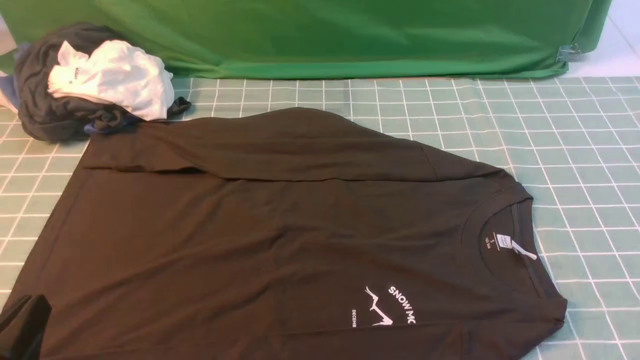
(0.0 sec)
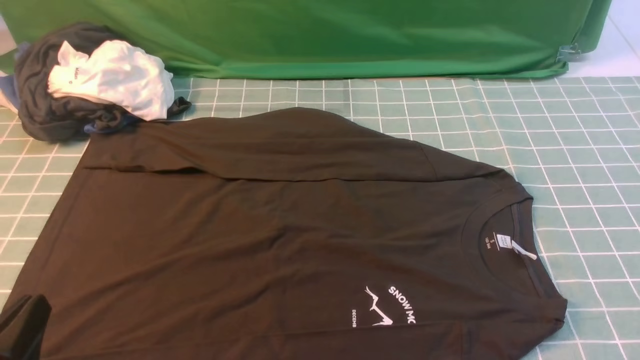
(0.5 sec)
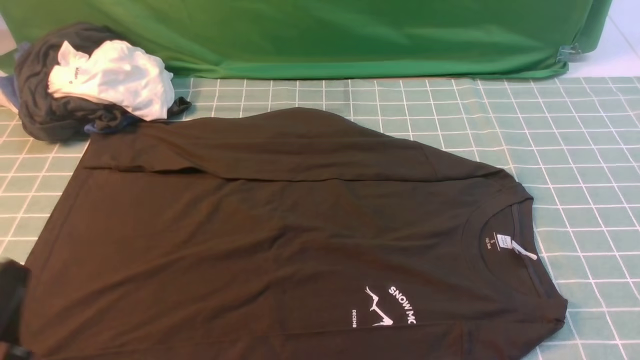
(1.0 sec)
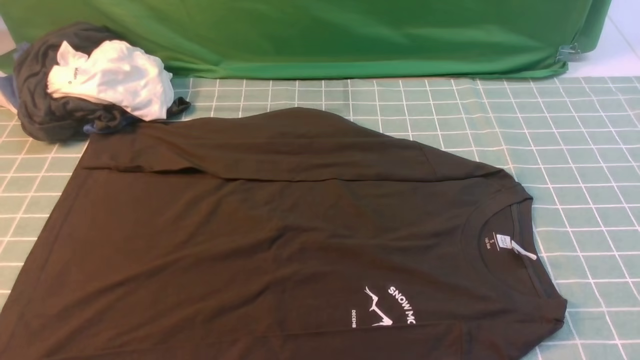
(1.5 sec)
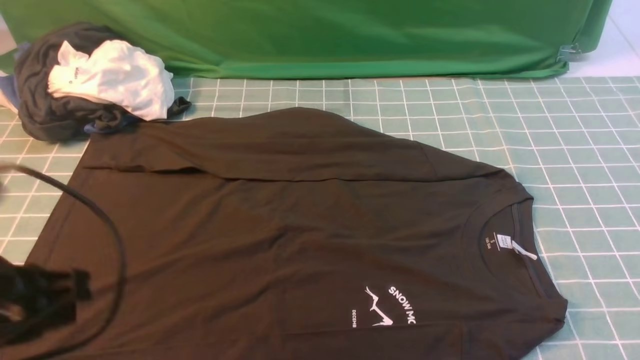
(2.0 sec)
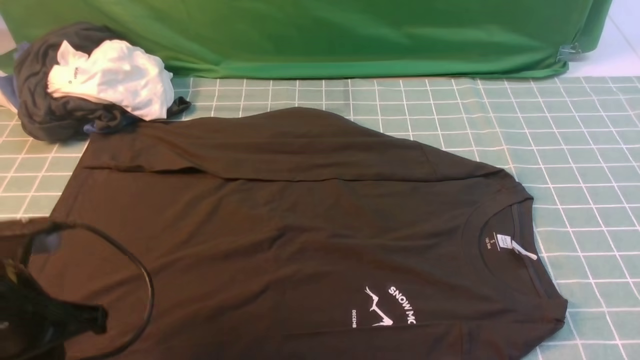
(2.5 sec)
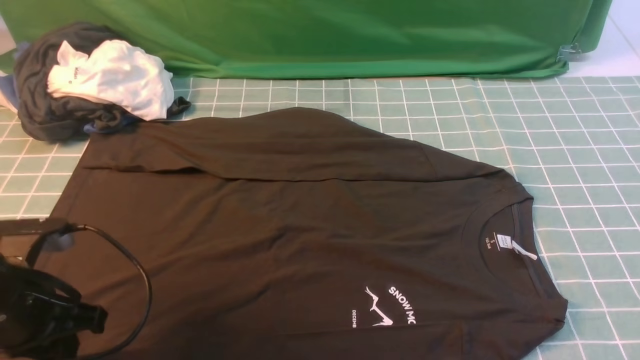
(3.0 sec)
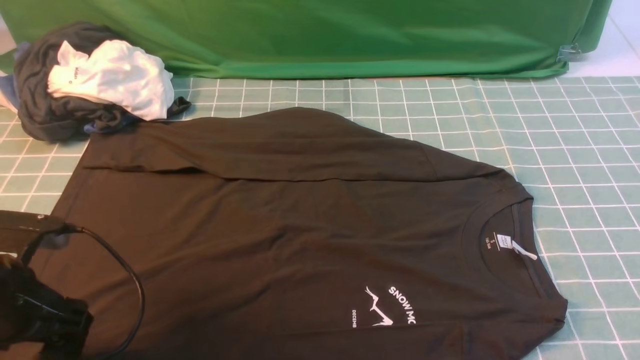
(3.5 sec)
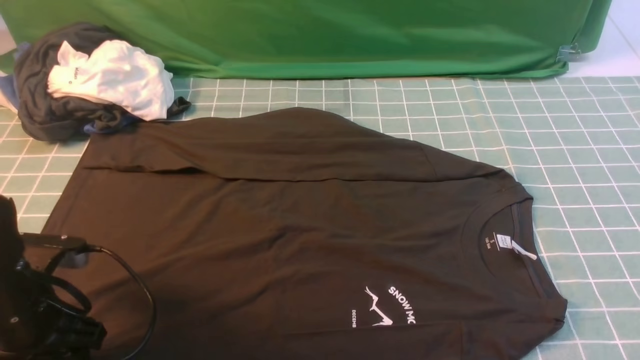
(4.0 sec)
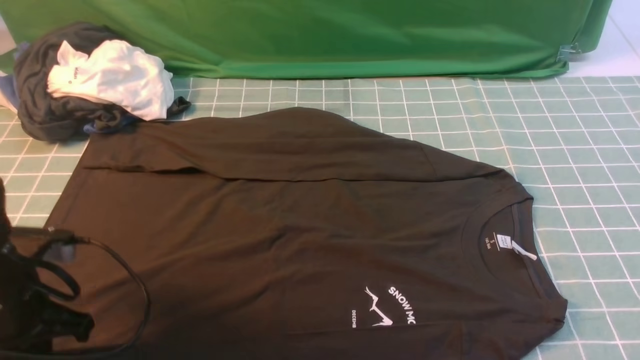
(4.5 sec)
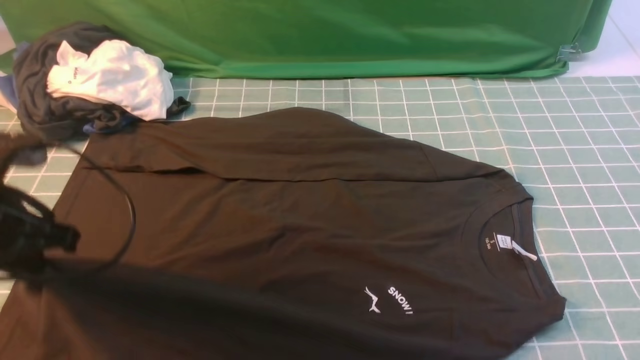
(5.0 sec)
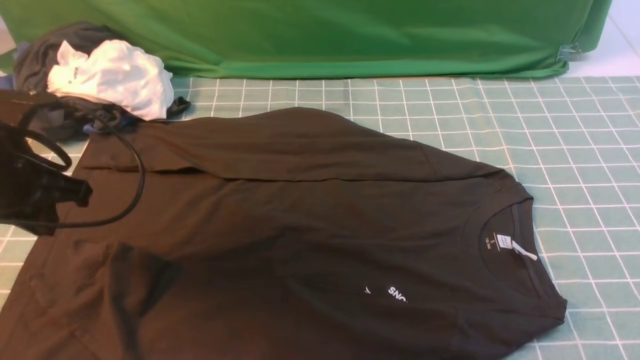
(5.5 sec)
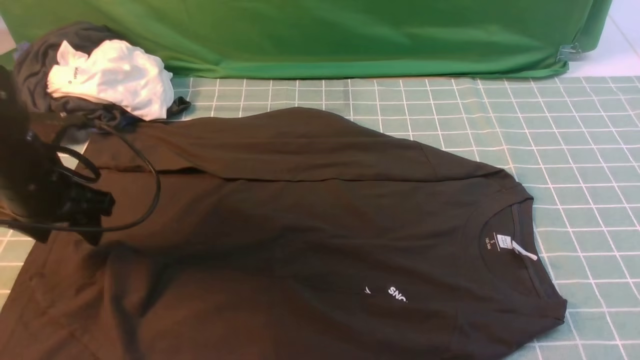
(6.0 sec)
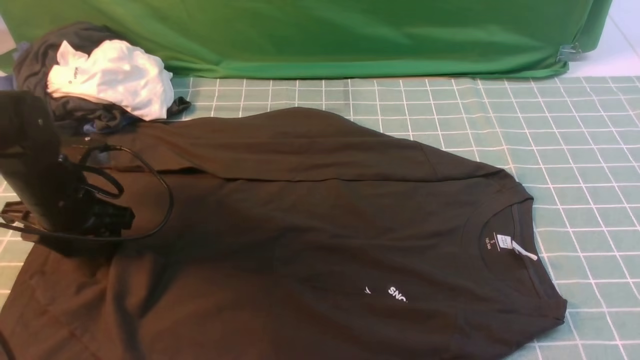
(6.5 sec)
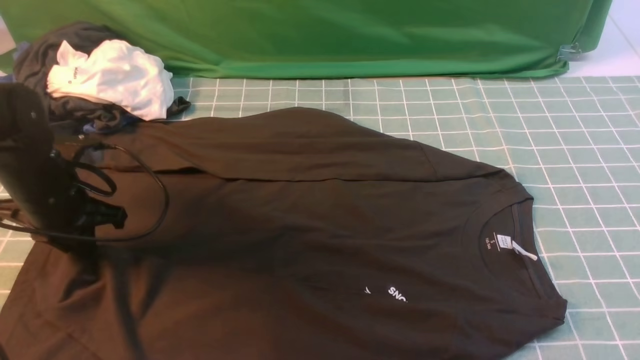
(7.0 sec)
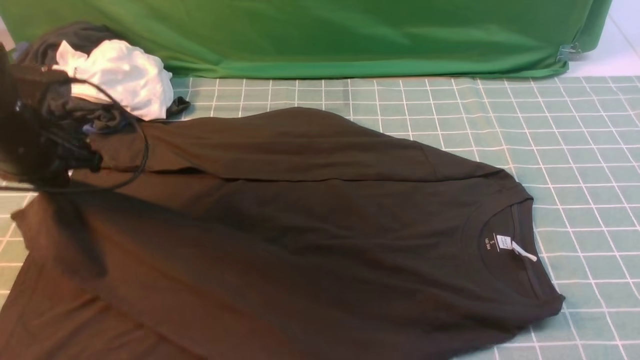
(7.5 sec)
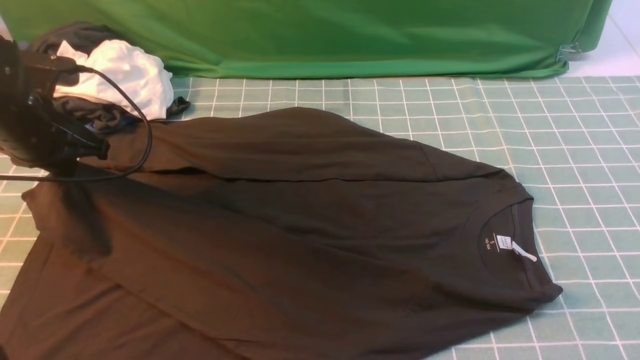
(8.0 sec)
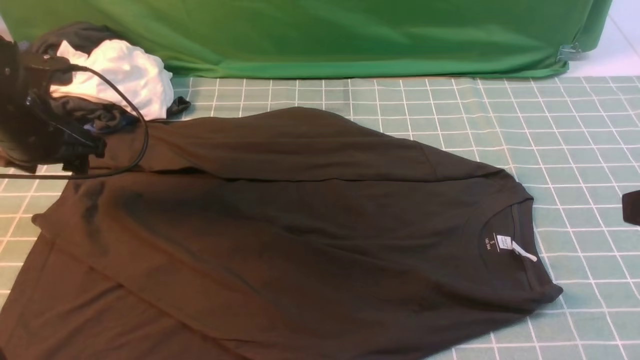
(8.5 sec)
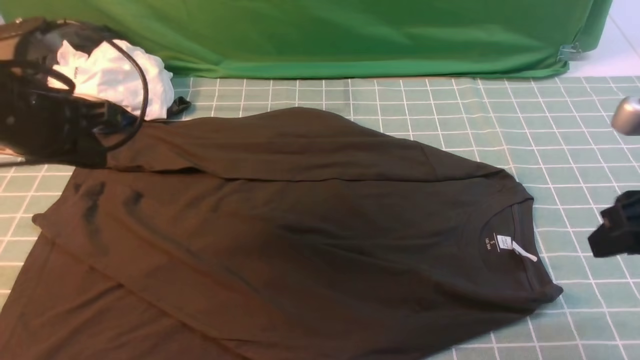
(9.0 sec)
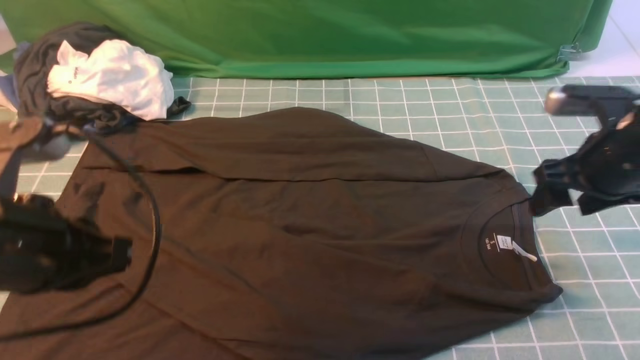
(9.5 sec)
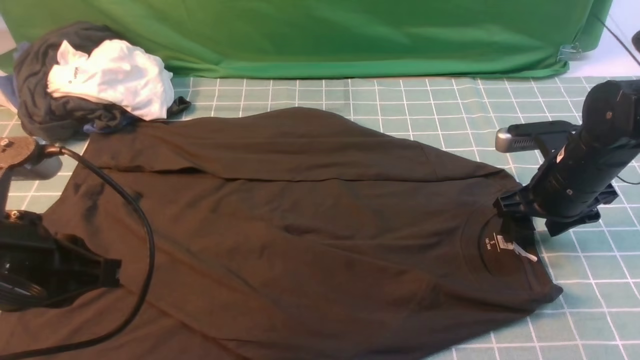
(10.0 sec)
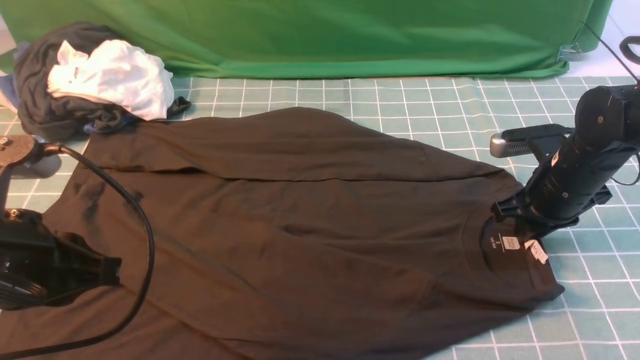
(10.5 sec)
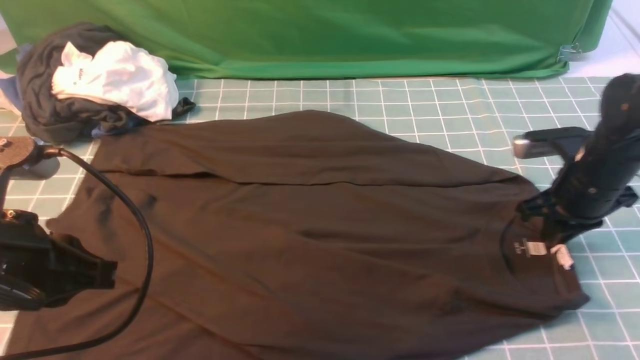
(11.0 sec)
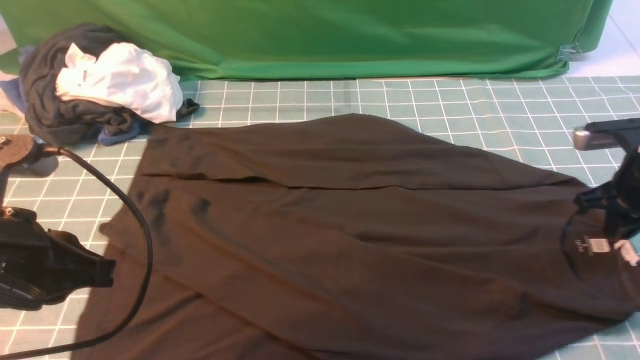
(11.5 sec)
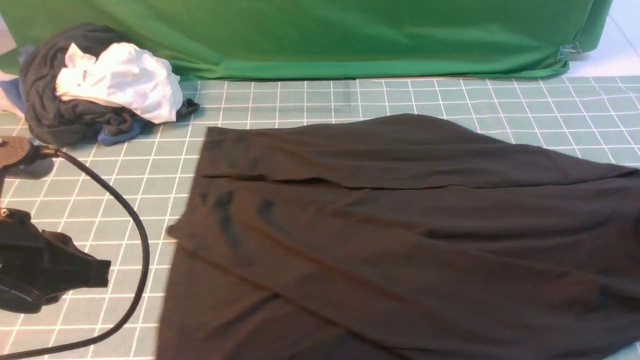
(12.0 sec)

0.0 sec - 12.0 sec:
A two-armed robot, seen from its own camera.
Step, 0.0 sec - 4.5 sec: use the left arm to clamp the cuff closest to it.
Step, 5.0 sec - 8.5 sec: use the left arm to drag and place the cuff at the centered position on the left edge of the fabric.
0.0 sec - 2.0 sec: The left gripper travels upward and forward by approximately 15 cm.
2.0 sec - 4.0 sec: The left gripper shifts some 15 cm downward and forward, and opens its fingers.
4.0 sec - 6.0 sec: The left gripper heads forward, covering roughly 10 cm, and closes and opens again.
6.0 sec - 8.0 sec: The left gripper ends up some 5 cm from where it was, and closes up.
8.0 sec - 10.0 sec: The right gripper shifts approximately 30 cm forward and downward, and opens its fingers, while the left gripper goes some 20 cm backward and to the right, and opens, then closes again.
10.0 sec - 12.0 sec: The right gripper shifts roughly 15 cm to the right, and closes up.

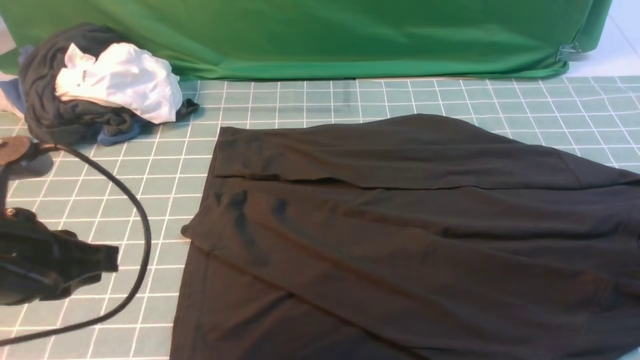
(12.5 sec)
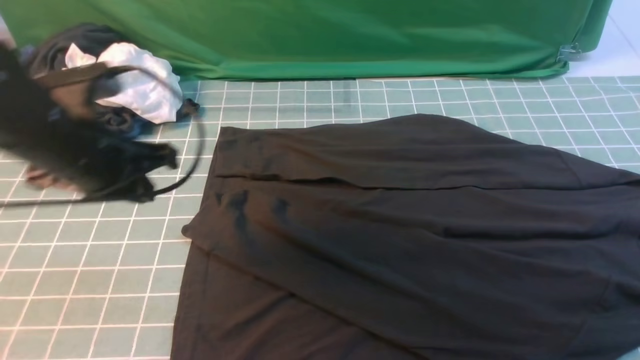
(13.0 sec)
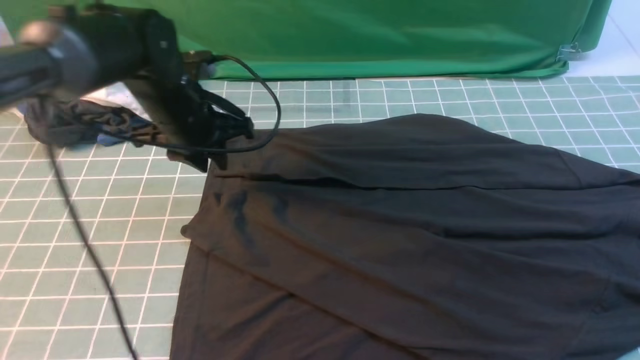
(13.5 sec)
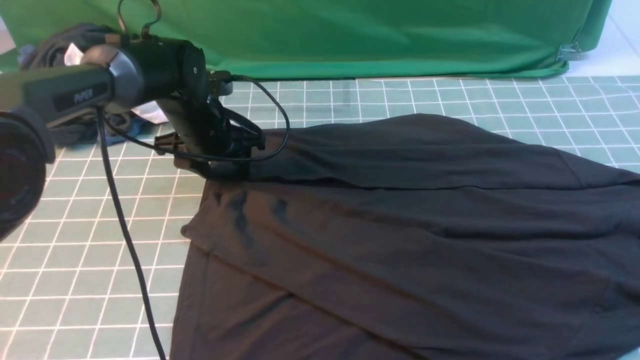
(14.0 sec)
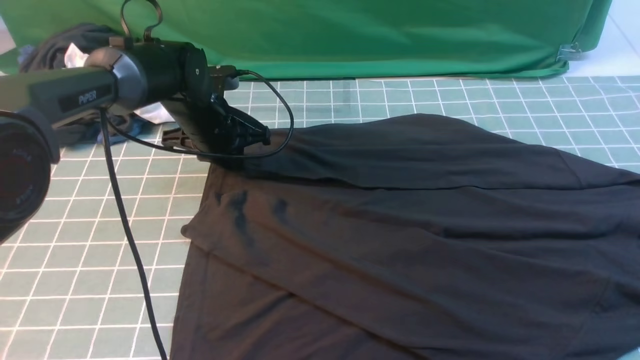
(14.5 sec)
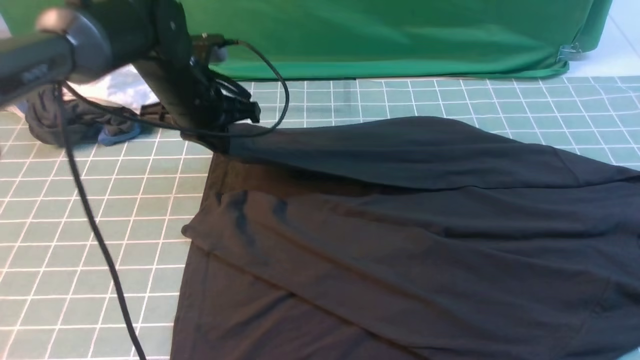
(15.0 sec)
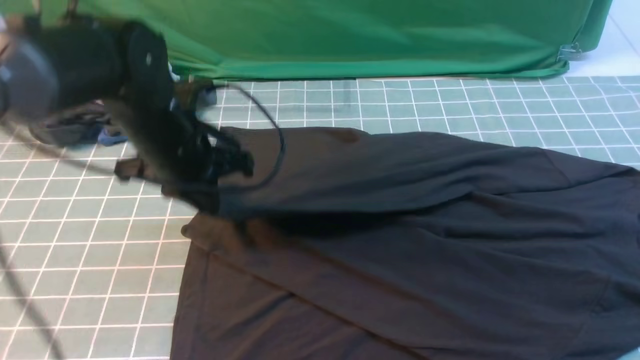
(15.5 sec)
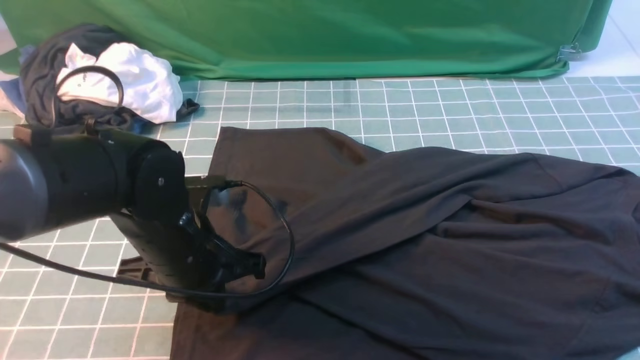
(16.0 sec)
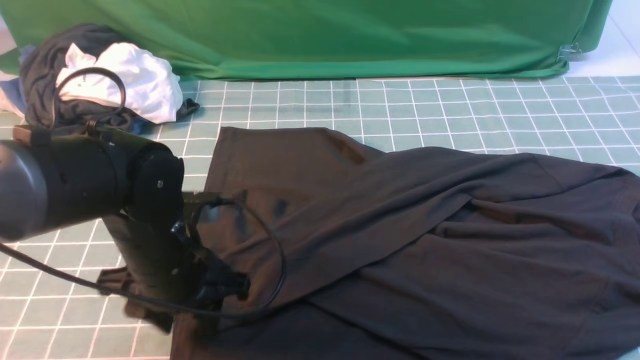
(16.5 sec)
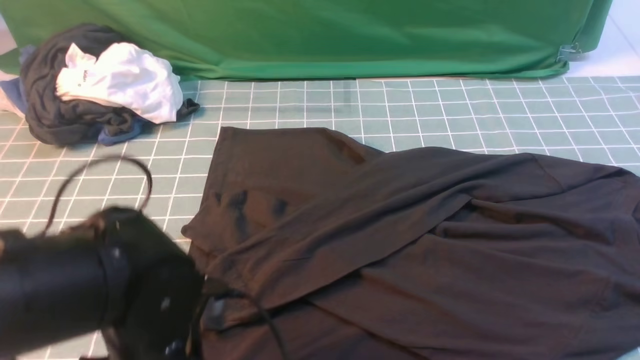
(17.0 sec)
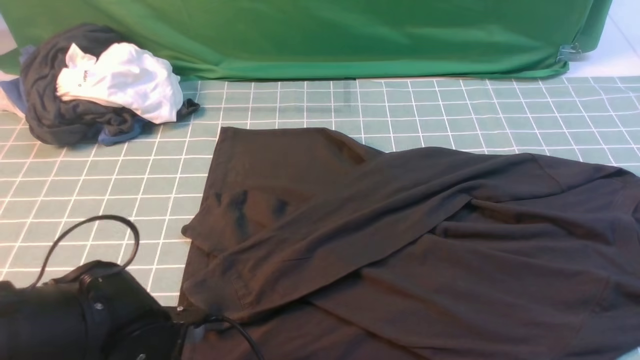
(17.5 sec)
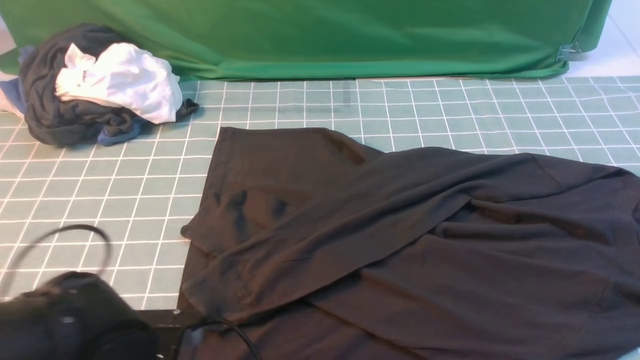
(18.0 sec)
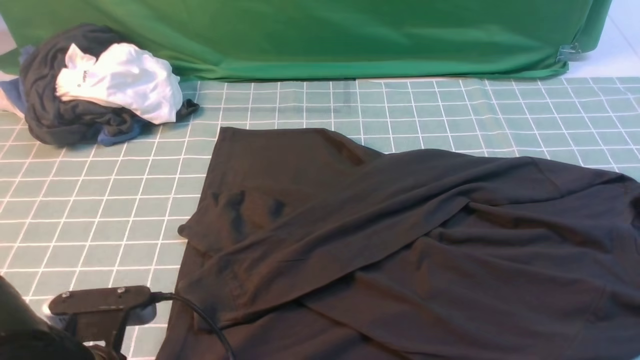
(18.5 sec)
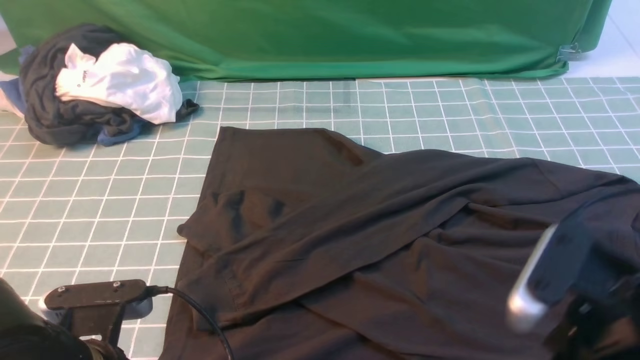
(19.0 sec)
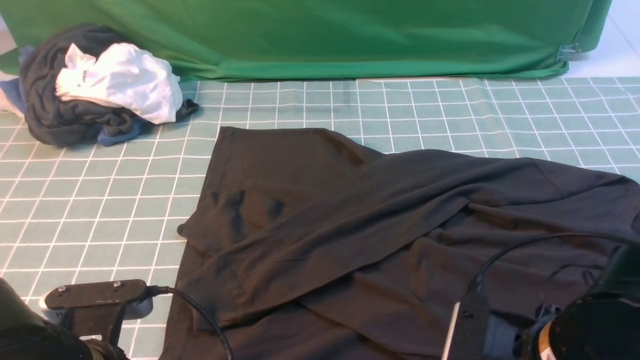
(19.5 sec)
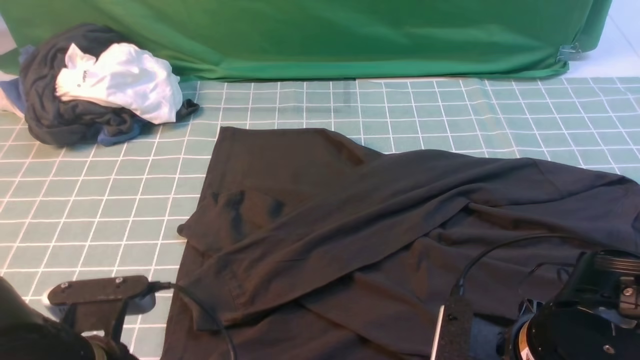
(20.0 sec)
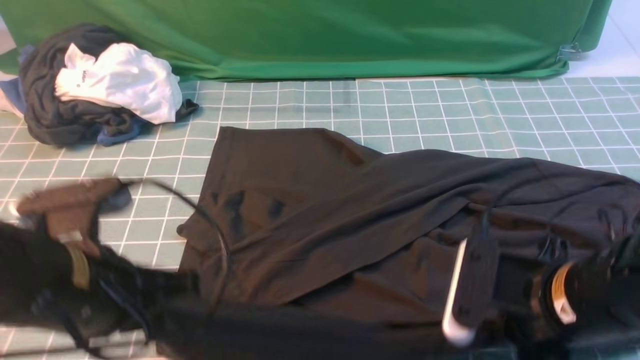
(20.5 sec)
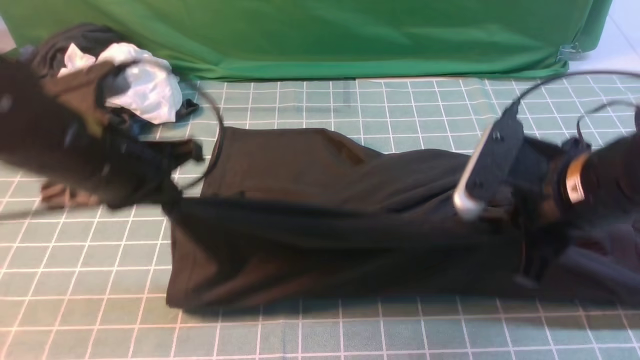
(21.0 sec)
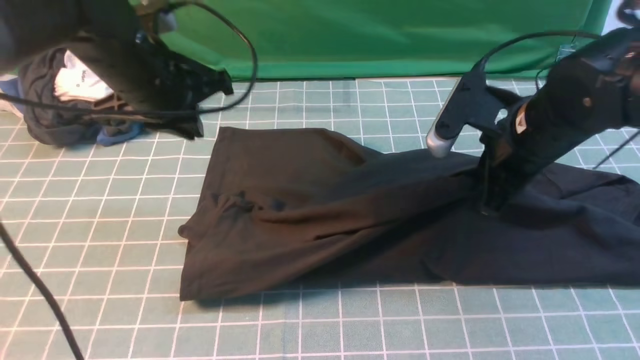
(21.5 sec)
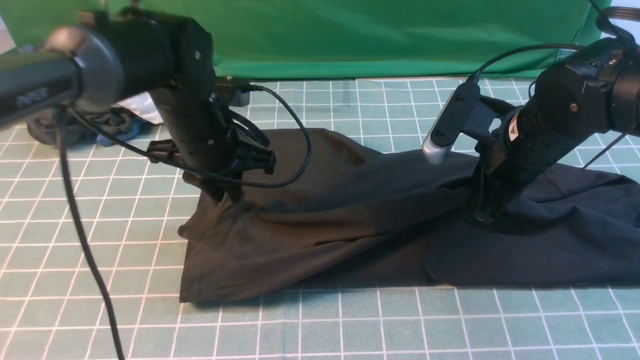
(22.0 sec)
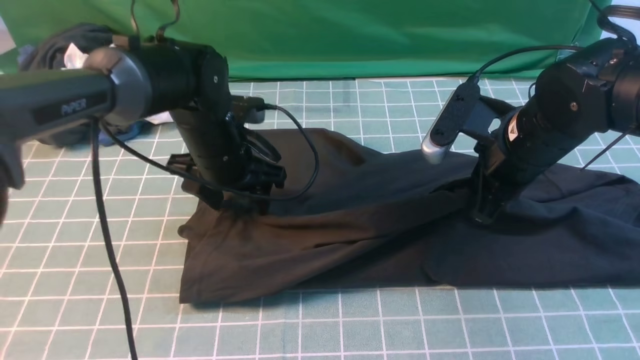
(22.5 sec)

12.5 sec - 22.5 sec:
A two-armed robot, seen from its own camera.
Step, 12.5 sec - 14.5 sec: use the left arm to clamp the cuff farthest from it.
Step, 15.0 sec - 16.5 sec: use the left arm to drag and drop the cuff onto the cuff closest to the left arm.
Step, 17.0 sec - 20.0 sec: use both arms simultaneously to clamp the lower edge of the clothing fabric.
12.5 sec - 14.5 sec: The right gripper goes approximately 25 cm backward, upward and to the left, and closes. The left gripper travels forward and downward by approximately 30 cm, and opens, then closes again.
14.5 sec - 16.5 sec: The left gripper is displaced backward by some 20 cm, and opens its fingers.
16.5 sec - 18.5 sec: The right gripper moves approximately 5 cm. Meanwhile the left gripper heads backward, covering about 10 cm, and closes.
18.5 sec - 20.5 sec: The left gripper moves upward and forward, some 10 cm, while the right gripper moves downward and to the left, some 15 cm, and opens and closes again.
20.5 sec - 22.5 sec: The grippers both shift forward by about 20 cm. The left gripper opens its fingers.
